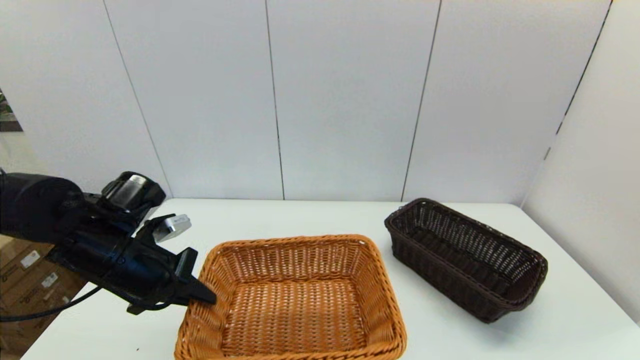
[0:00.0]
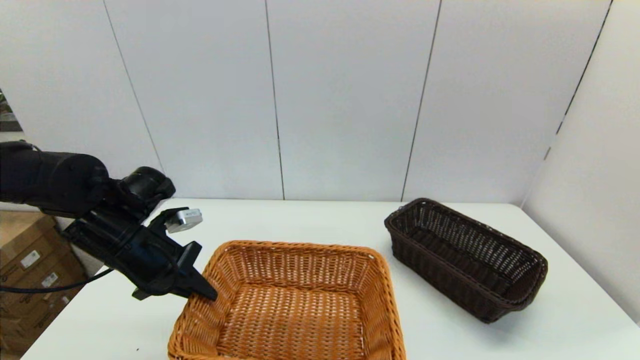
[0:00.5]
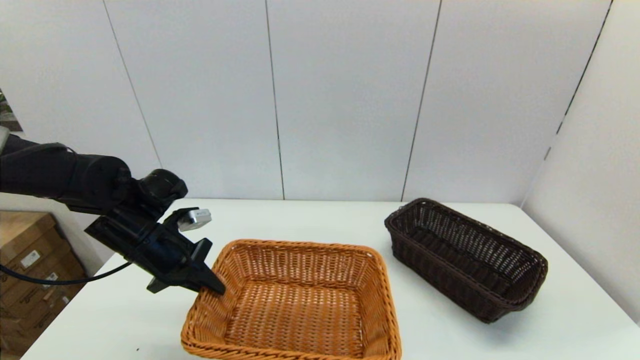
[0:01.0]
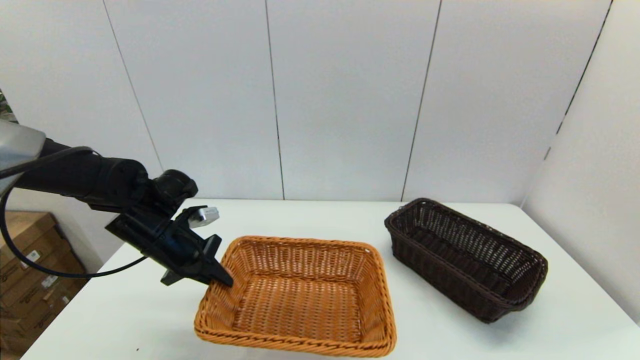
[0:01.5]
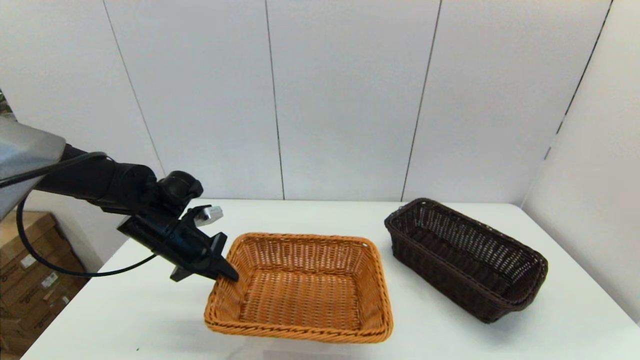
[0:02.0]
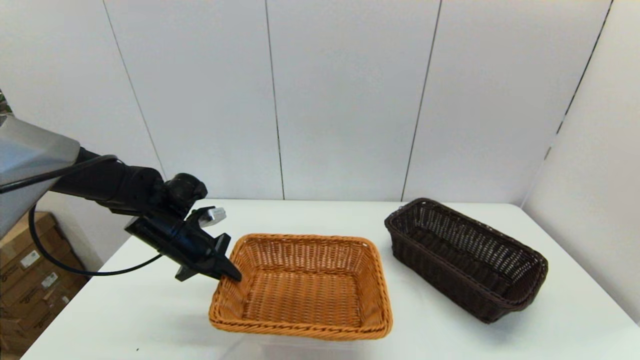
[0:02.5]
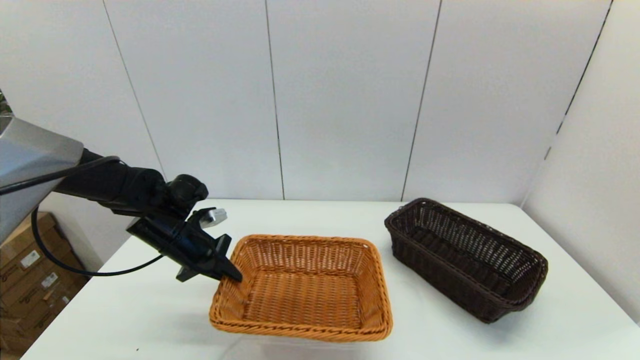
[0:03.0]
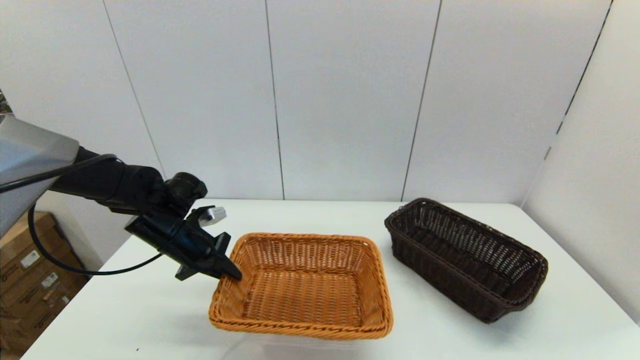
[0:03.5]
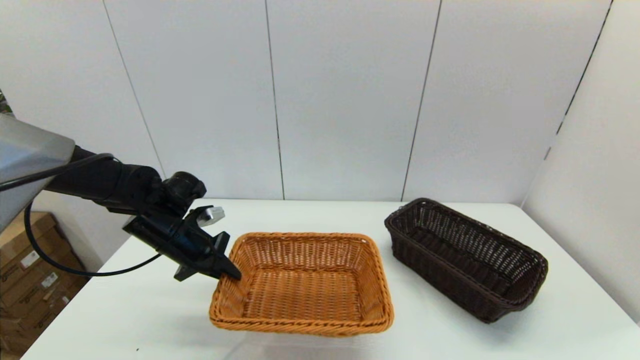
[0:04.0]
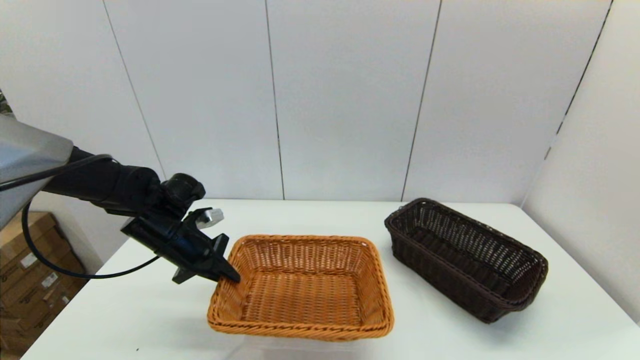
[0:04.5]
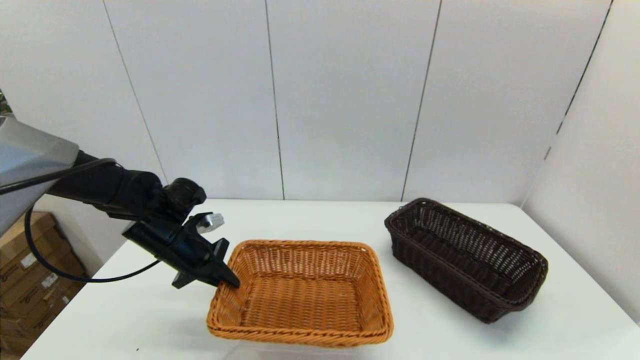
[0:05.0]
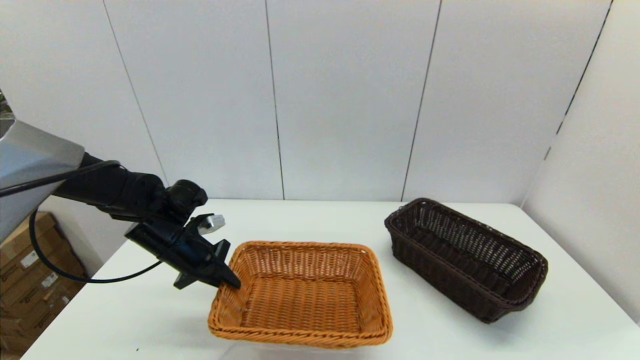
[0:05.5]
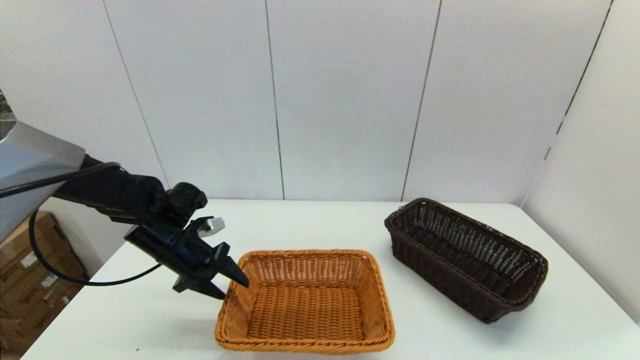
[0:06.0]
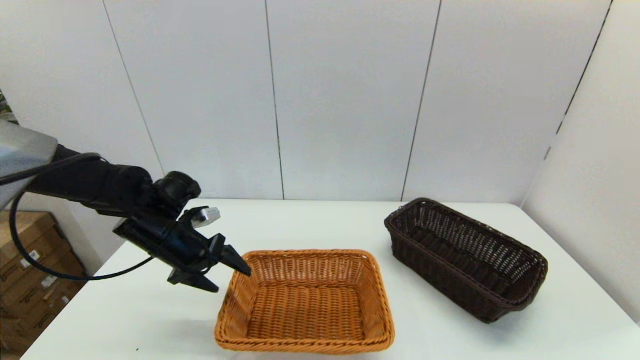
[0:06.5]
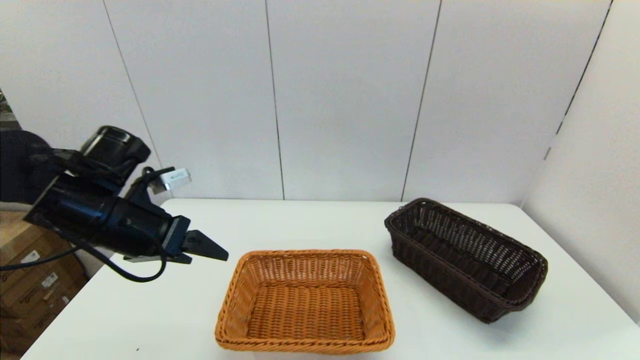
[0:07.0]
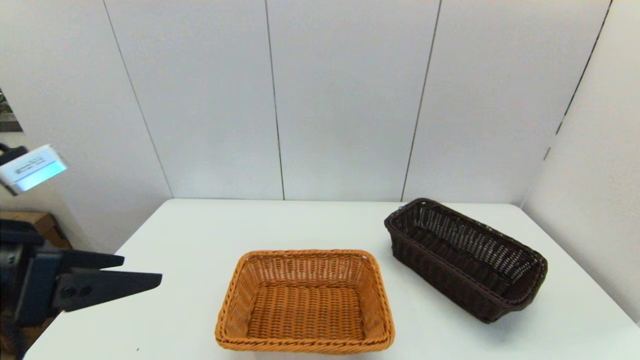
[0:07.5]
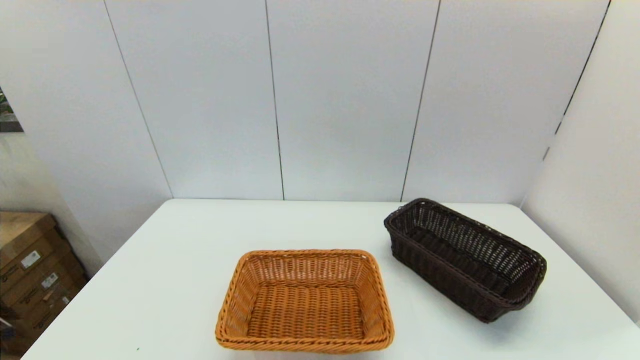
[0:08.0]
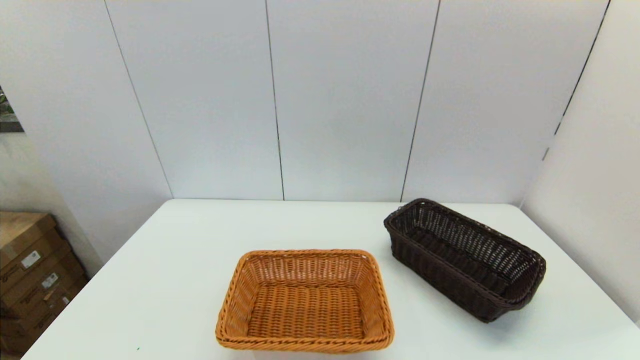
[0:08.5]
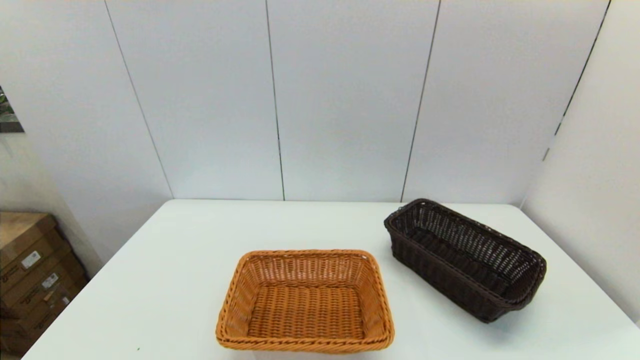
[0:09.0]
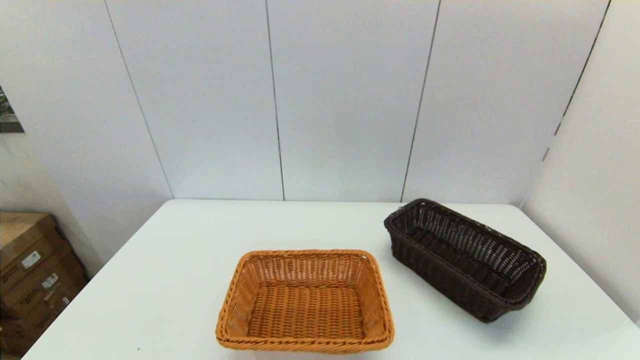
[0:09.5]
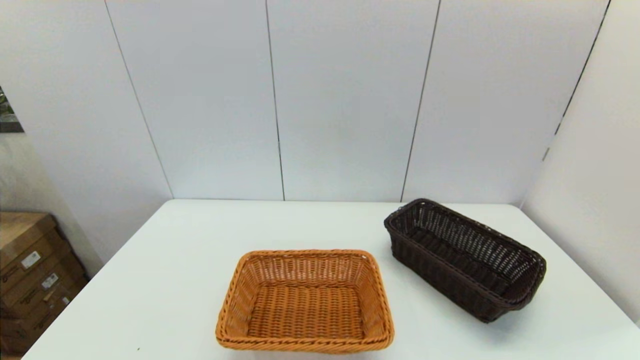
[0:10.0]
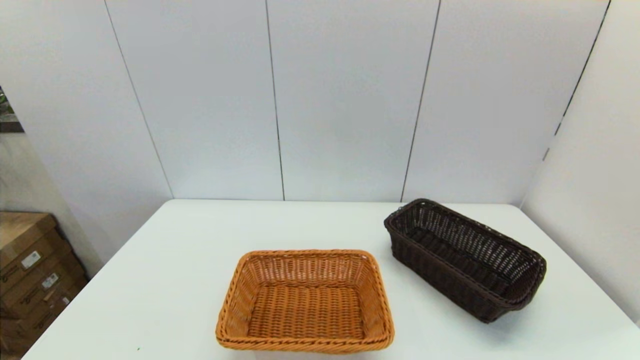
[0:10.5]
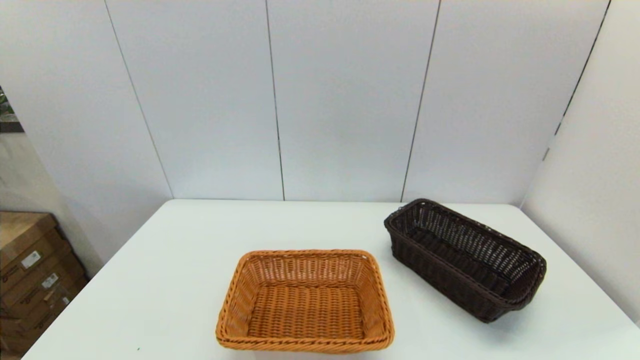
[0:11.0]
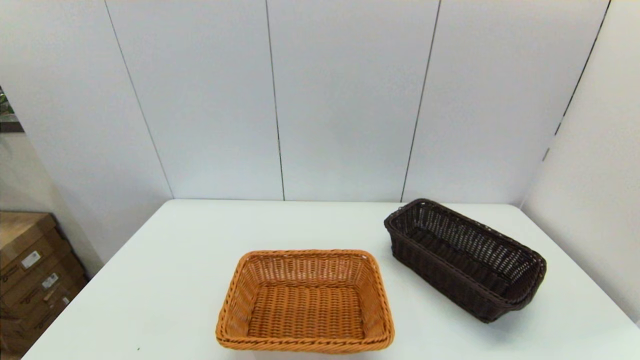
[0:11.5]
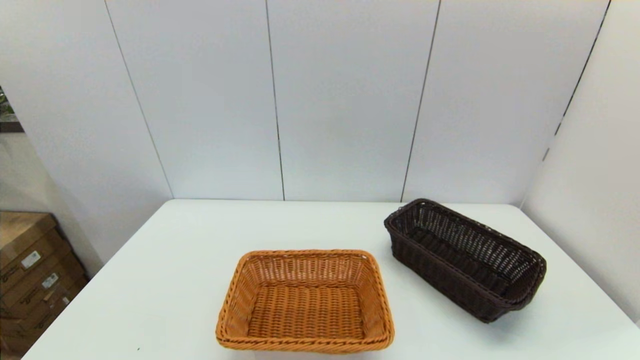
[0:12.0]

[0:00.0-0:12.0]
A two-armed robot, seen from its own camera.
Task of the whole recording: stack a basket on top of another basket.
Step, 0:00.0 to 0:06.5: Place the light basket on the middle of the table with the left gripper.
0:00.0 to 0:02.0: The left gripper travels forward by approximately 10 cm.
0:02.0 to 0:04.0: Both grippers stay put.
0:04.0 to 0:06.0: The left gripper opens its fingers.
0:06.0 to 0:08.0: The left gripper heads backward and upward, covering roughly 35 cm, and opens its fingers.
0:10.0 to 0:12.0: The two grippers keep their place.

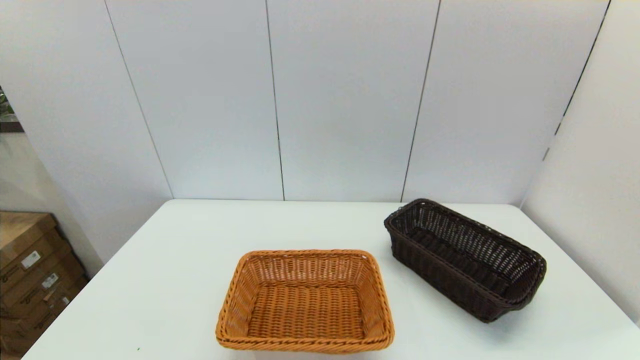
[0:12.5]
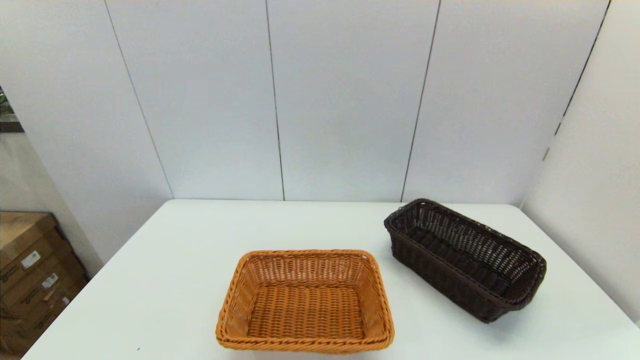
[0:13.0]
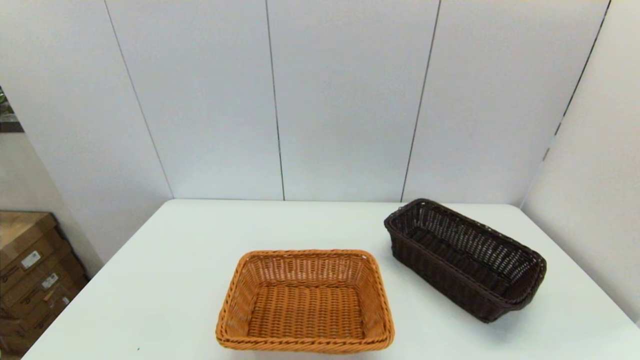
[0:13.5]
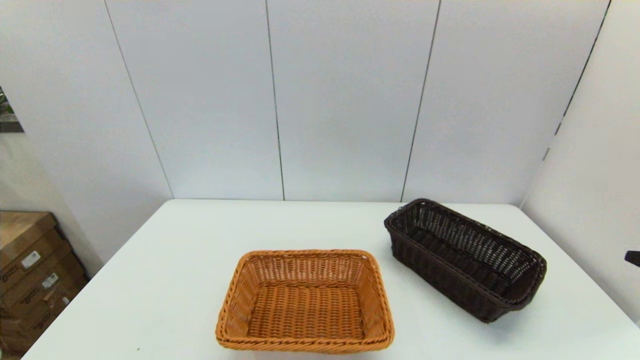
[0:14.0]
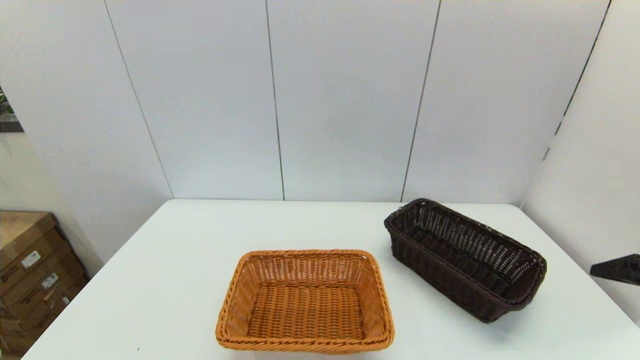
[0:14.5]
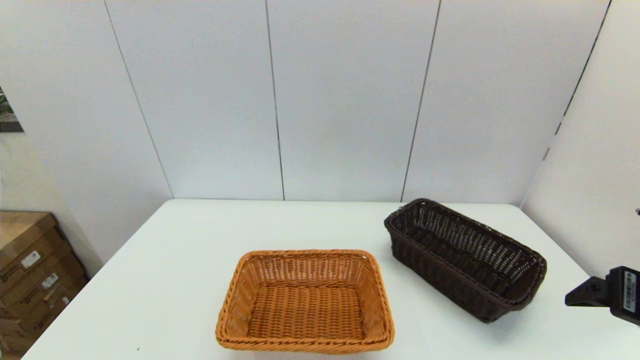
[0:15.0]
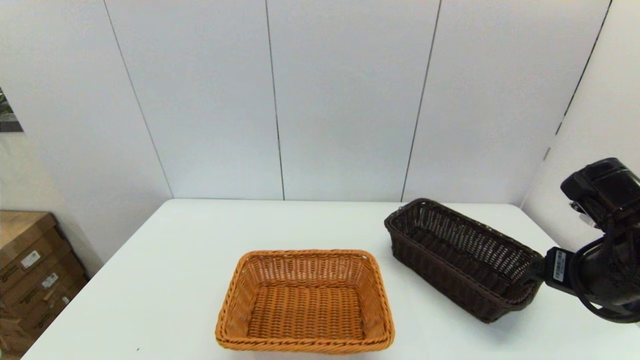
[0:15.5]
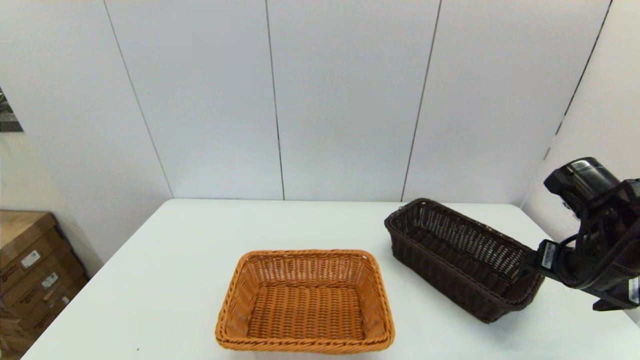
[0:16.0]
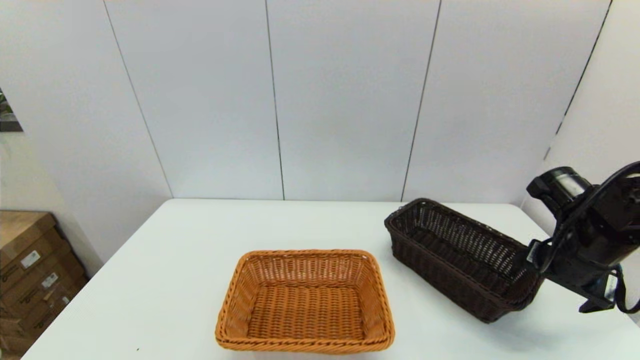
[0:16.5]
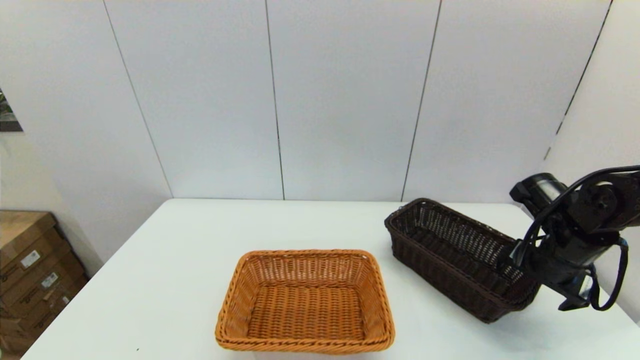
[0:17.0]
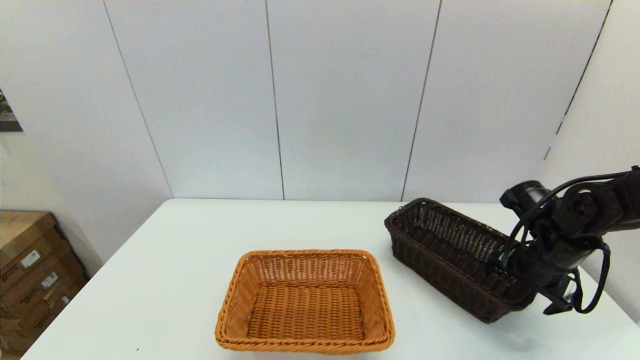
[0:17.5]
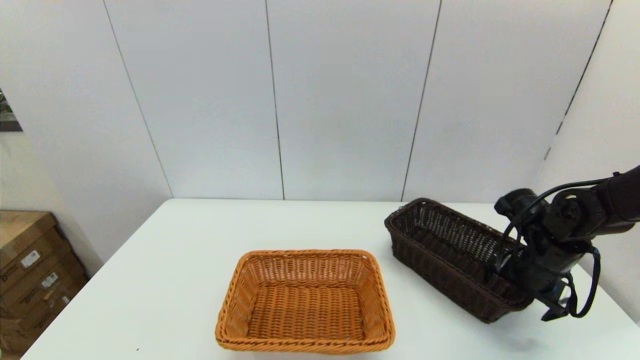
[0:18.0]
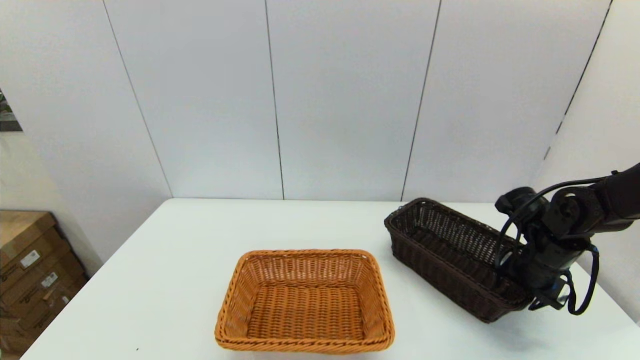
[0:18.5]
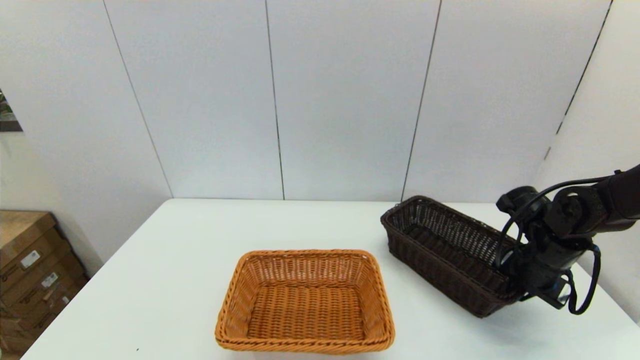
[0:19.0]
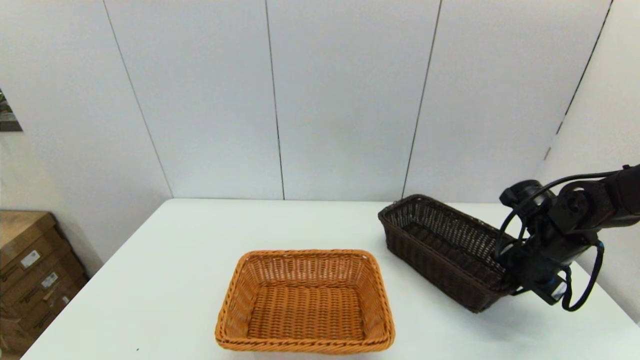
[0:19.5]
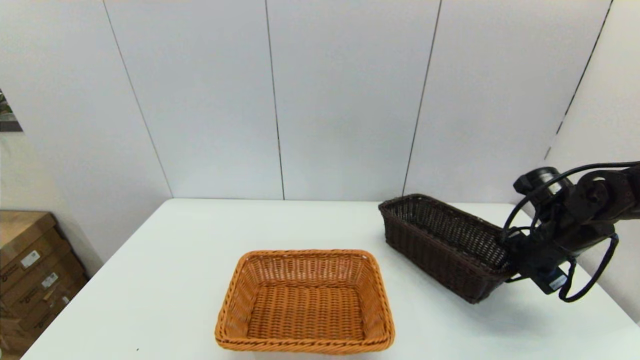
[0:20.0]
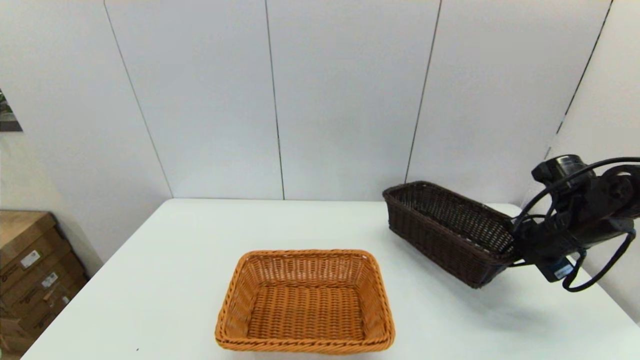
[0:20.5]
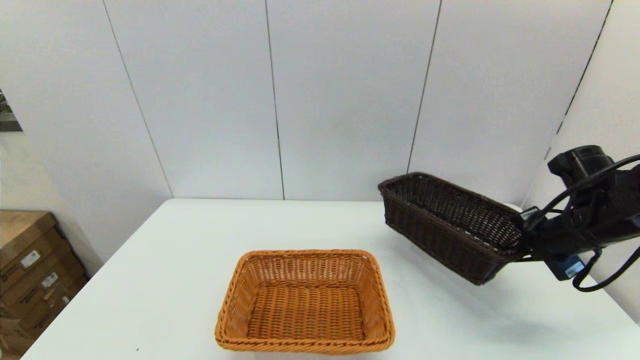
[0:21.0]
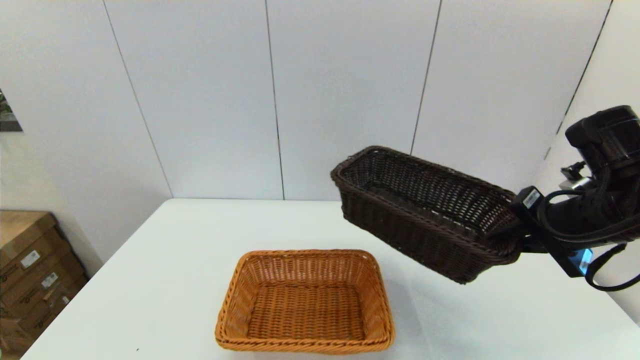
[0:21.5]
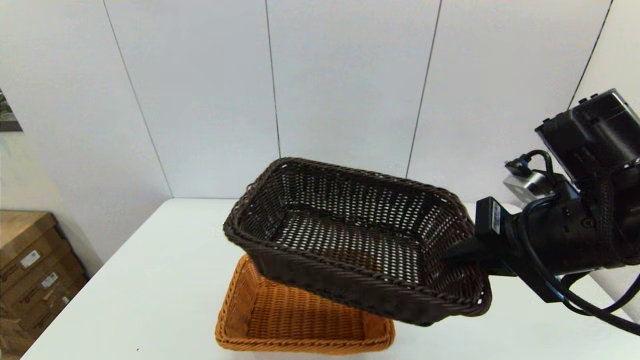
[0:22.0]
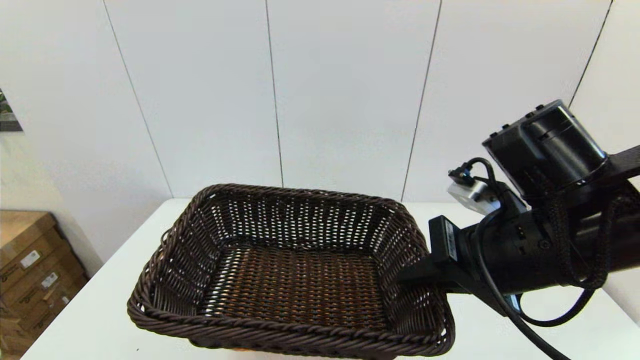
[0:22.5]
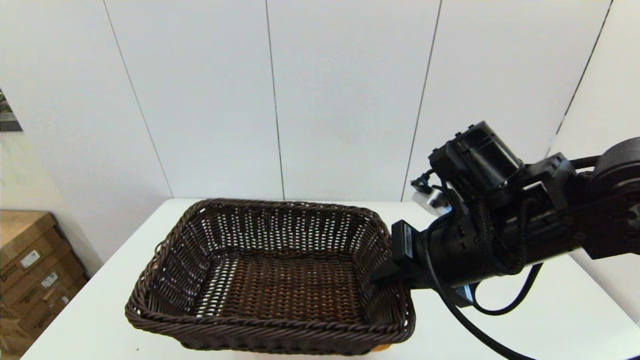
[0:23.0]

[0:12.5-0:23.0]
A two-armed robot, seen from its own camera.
Task of the whole recording: stack a basket on top of another basket.
Step, 0:12.5 to 0:18.5: Grasp the dark basket with the right gripper.
0:14.5 to 0:16.5: The right gripper shifts roughly 20 cm forward and downward.
0:16.5 to 0:19.0: The right gripper moves downward, approximately 5 cm, and closes.
0:19.0 to 0:21.0: The right gripper travels upward by approximately 10 cm.
0:21.0 to 0:23.0: The right gripper travels to the left by some 20 cm.
